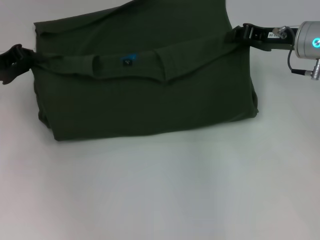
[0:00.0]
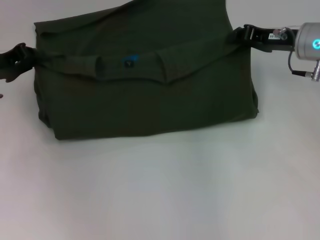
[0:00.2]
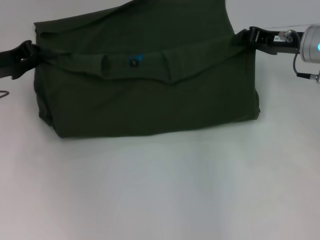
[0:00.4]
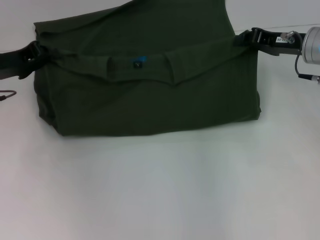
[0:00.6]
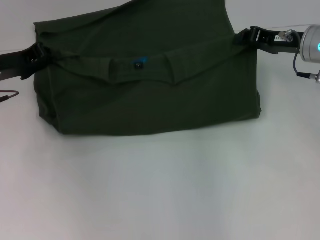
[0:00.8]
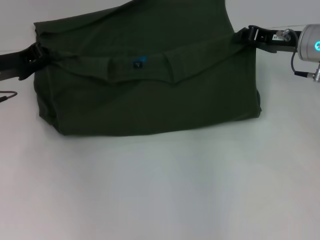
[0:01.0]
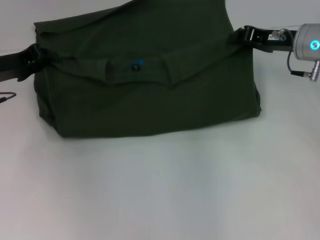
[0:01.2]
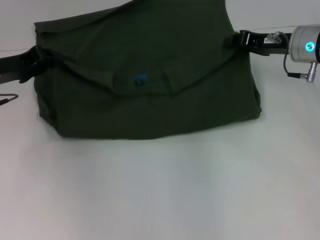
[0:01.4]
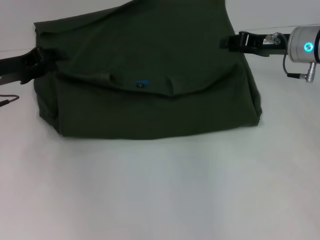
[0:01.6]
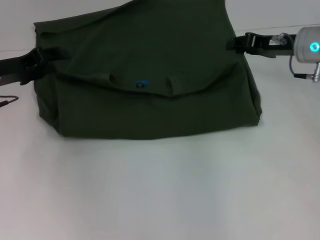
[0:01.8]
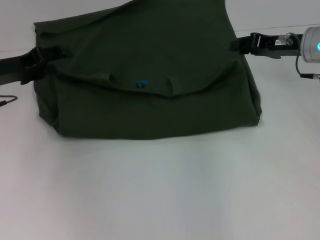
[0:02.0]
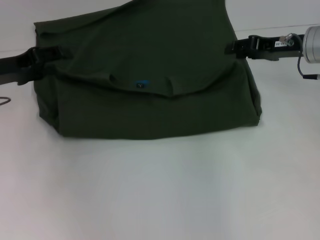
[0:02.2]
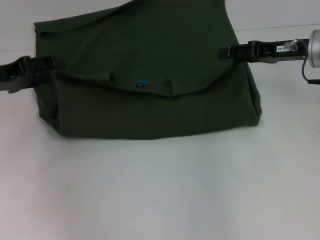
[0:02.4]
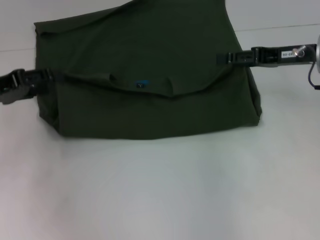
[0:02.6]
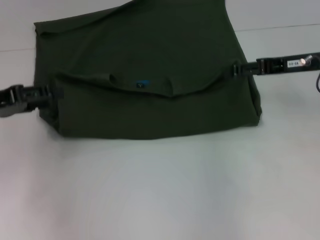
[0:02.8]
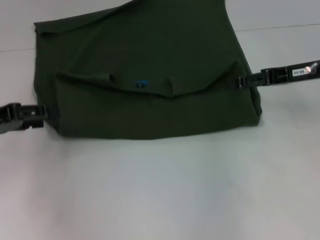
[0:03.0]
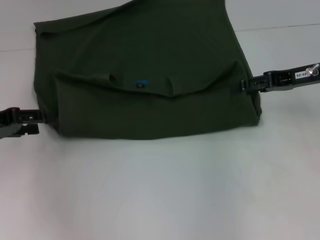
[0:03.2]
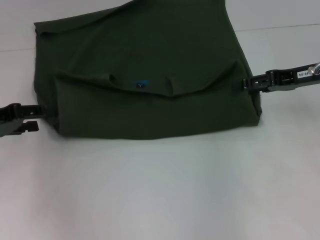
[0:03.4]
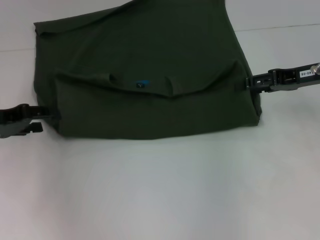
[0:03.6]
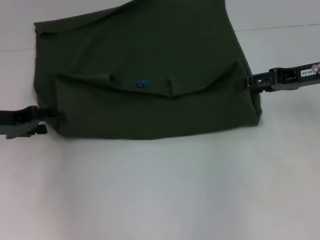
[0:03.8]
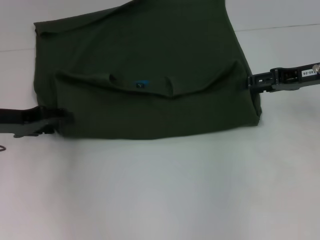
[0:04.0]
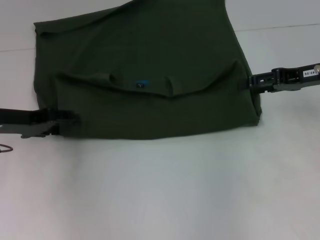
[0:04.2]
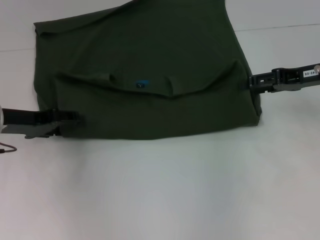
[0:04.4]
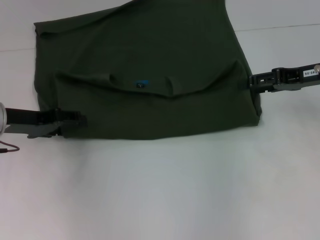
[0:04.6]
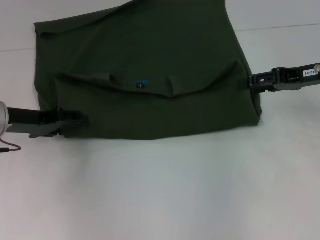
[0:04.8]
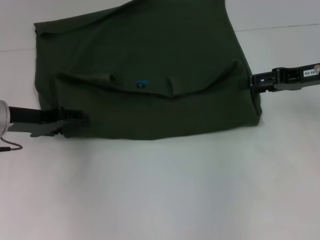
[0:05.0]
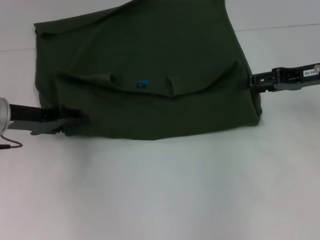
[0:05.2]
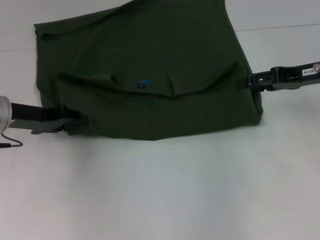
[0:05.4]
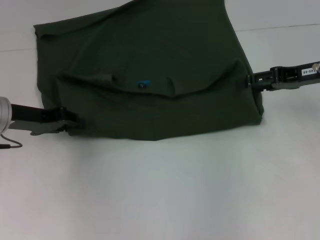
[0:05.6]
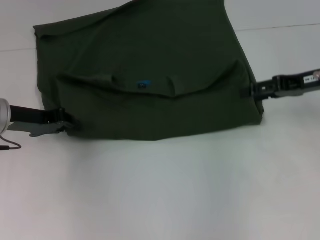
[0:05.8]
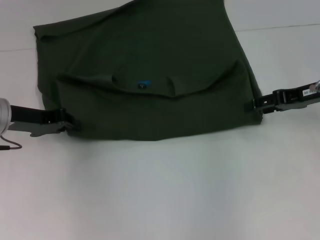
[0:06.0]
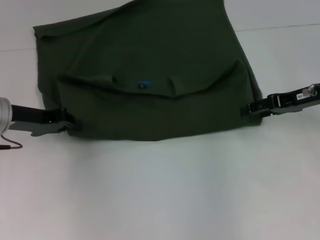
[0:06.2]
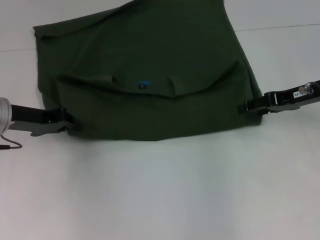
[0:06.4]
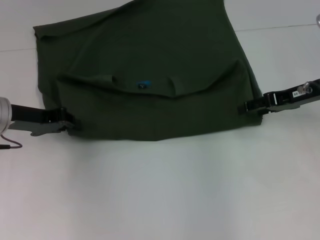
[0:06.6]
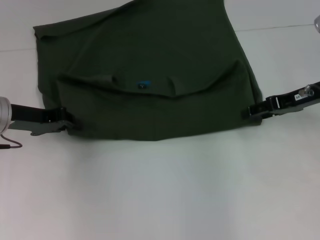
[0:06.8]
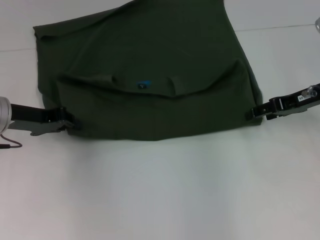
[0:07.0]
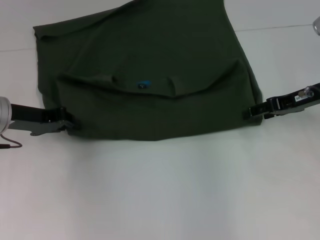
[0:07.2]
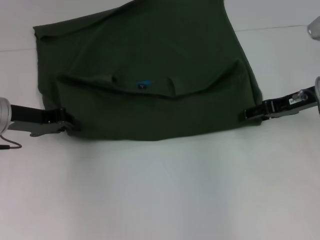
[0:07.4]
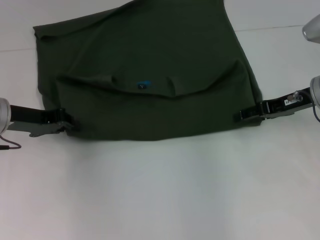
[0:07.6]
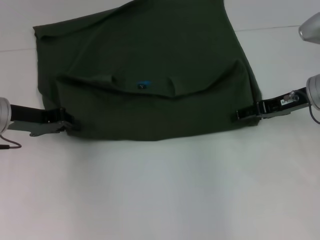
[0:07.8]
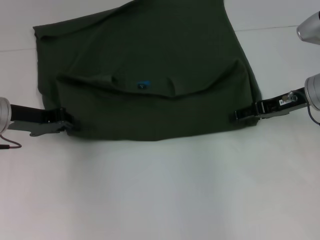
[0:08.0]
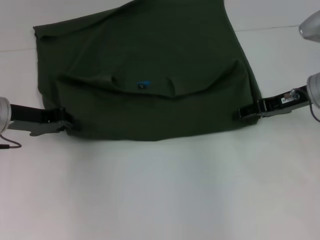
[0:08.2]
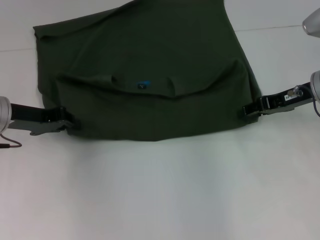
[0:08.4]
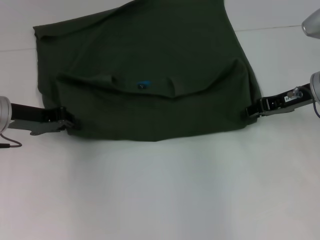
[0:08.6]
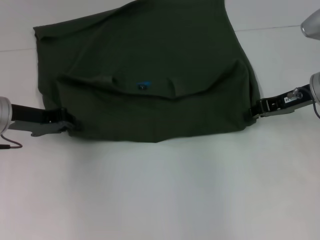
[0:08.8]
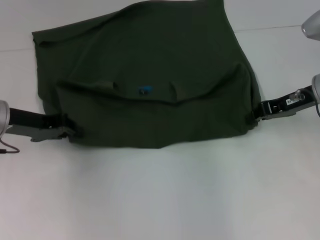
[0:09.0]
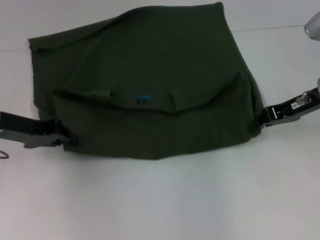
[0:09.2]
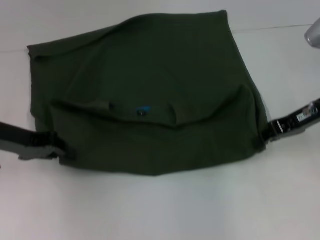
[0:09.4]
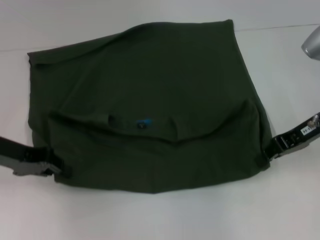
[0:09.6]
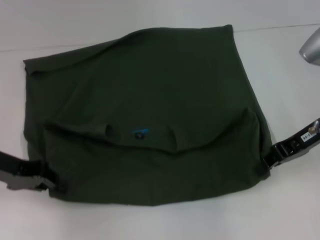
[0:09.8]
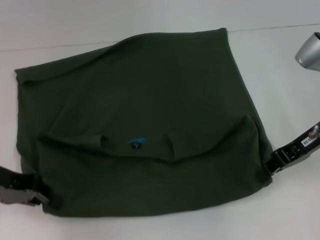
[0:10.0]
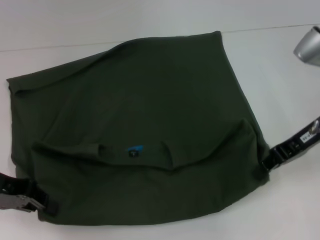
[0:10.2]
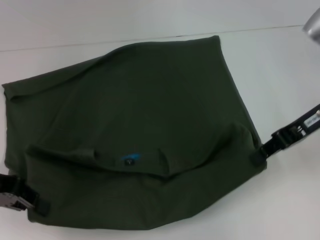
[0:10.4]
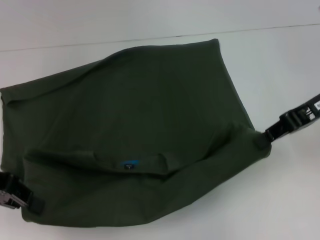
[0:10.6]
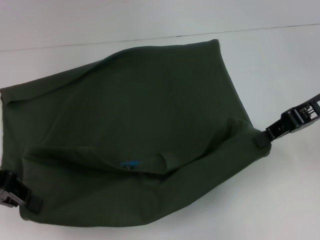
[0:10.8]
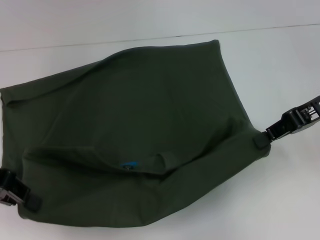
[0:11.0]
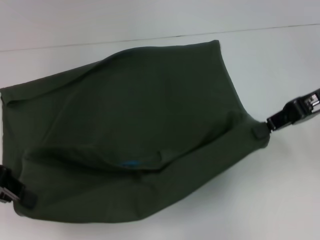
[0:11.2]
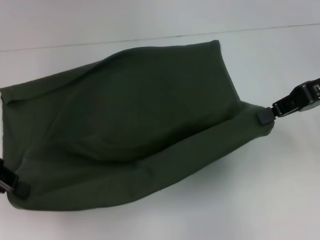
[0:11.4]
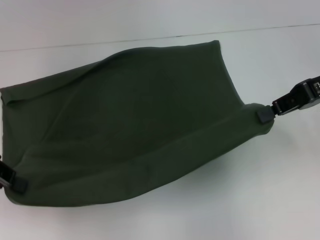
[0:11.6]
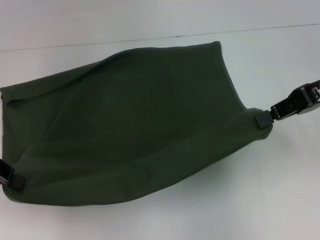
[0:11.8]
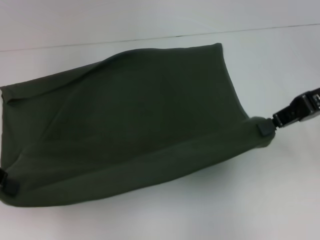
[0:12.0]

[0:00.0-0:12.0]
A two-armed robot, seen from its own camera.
Step, 0:01.6 to 0:10.0: Pull the clothes with your left hand.
Step, 0:01.6 to 0:10.0: Pull the clothes with your right hand.
0:00.0 to 0:01.6: The grippers make only small movements.
0:01.6 to 0:03.0: Both grippers move backward, about 5 cm. The left gripper opens. Meanwhile the right gripper opens its fingers.
0:03.0 to 0:04.4: The left gripper goes about 5 cm to the right.
0:04.4 to 0:06.0: The left gripper closes its fingers.
0:06.0 to 0:07.6: There are only small adjustments of the grippers.
0:07.6 to 0:09.0: The right gripper closes.
0:09.0 to 0:10.4: The right gripper is displaced upward by about 5 cm. Meanwhile the left gripper heads backward, covering roughly 5 cm.
0:10.4 to 0:12.0: The right gripper moves roughly 5 cm.

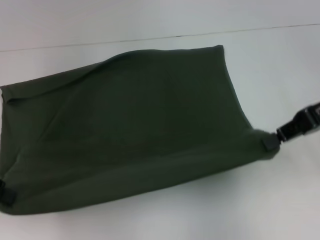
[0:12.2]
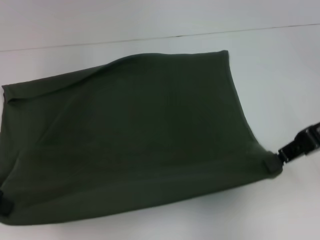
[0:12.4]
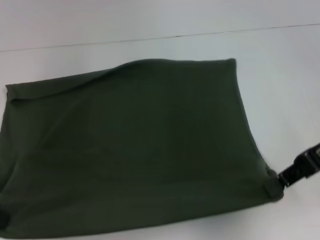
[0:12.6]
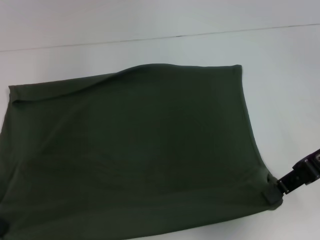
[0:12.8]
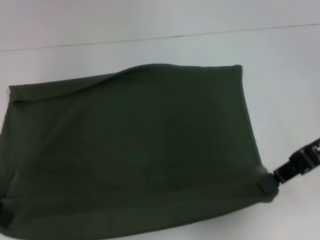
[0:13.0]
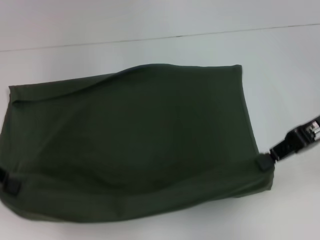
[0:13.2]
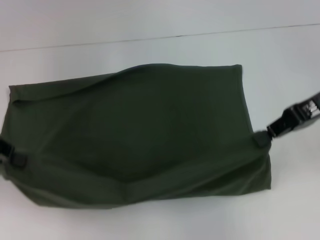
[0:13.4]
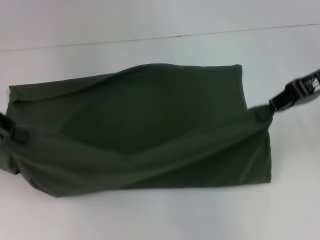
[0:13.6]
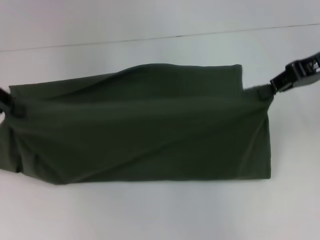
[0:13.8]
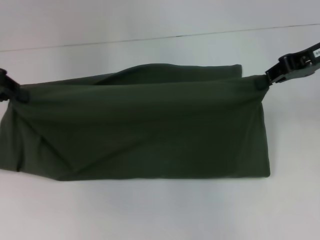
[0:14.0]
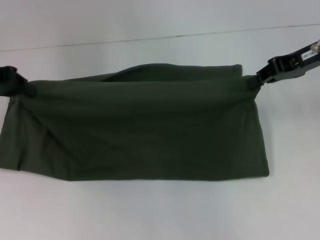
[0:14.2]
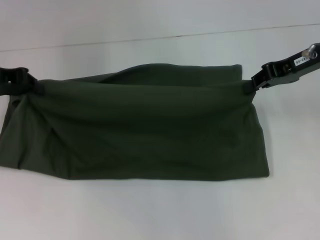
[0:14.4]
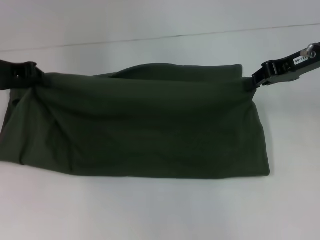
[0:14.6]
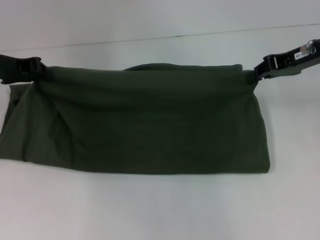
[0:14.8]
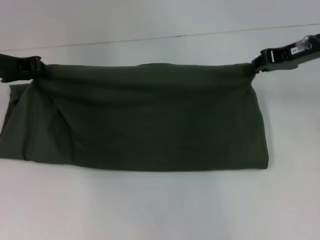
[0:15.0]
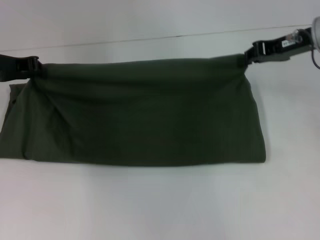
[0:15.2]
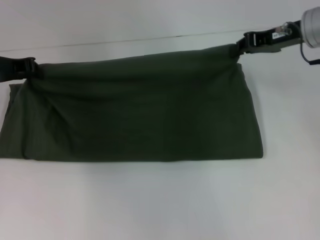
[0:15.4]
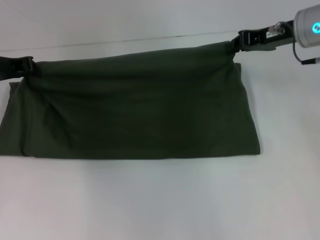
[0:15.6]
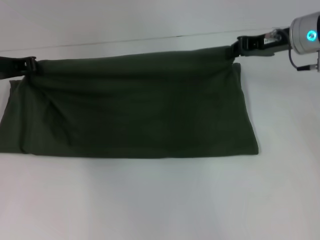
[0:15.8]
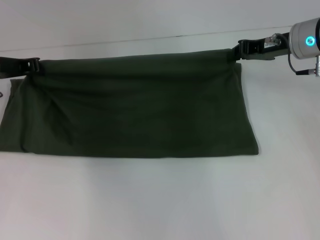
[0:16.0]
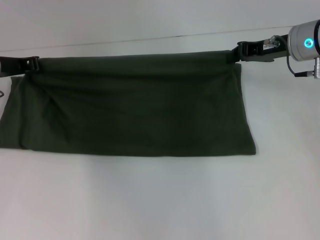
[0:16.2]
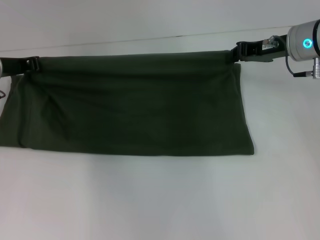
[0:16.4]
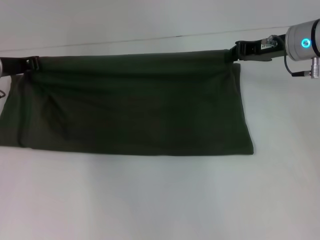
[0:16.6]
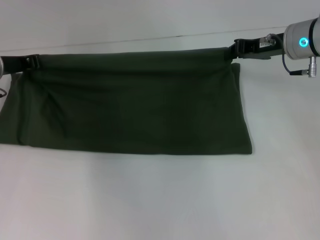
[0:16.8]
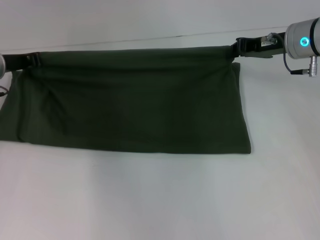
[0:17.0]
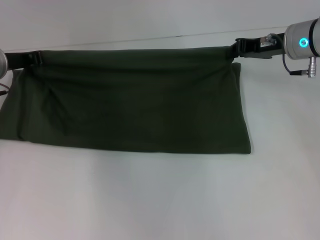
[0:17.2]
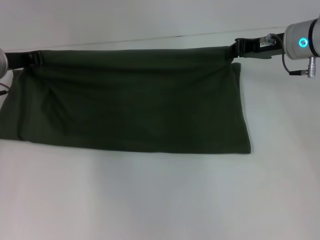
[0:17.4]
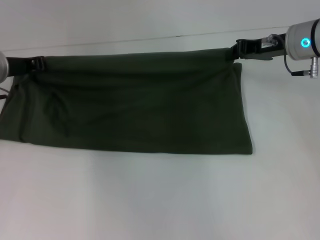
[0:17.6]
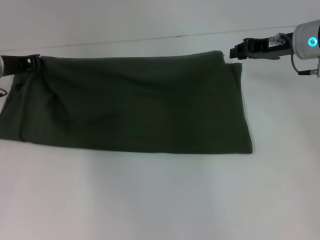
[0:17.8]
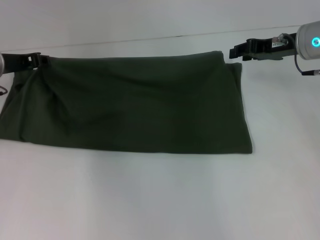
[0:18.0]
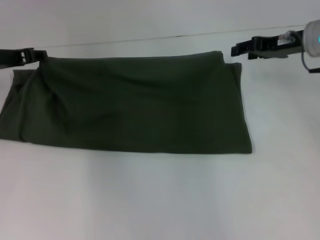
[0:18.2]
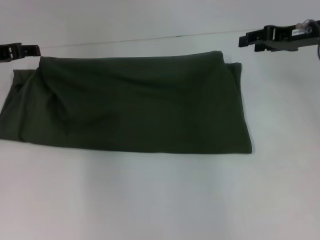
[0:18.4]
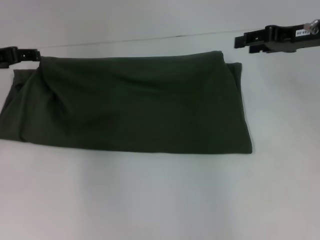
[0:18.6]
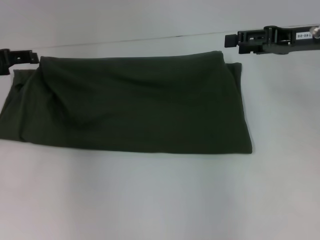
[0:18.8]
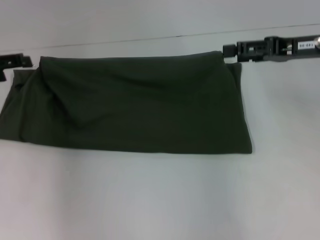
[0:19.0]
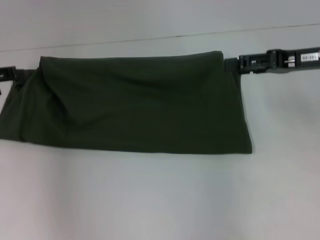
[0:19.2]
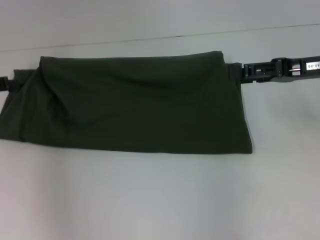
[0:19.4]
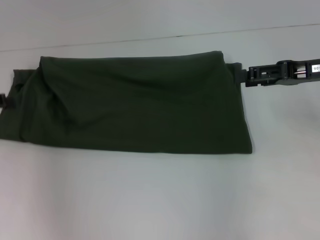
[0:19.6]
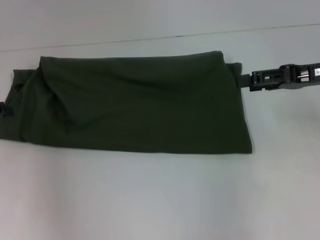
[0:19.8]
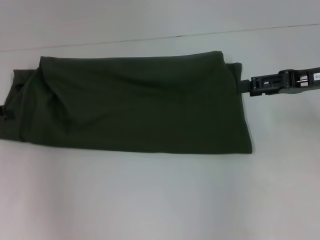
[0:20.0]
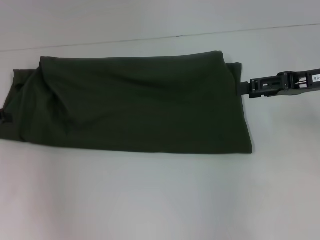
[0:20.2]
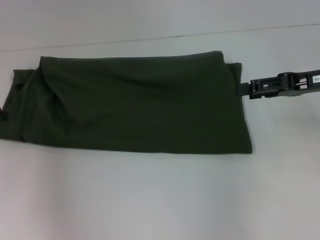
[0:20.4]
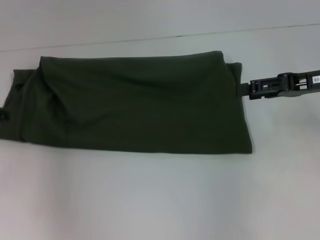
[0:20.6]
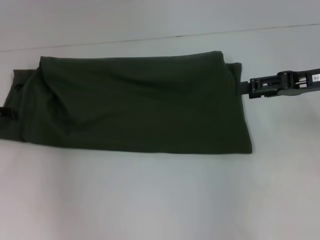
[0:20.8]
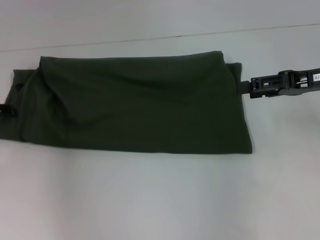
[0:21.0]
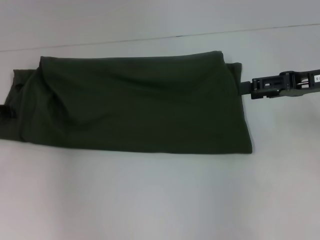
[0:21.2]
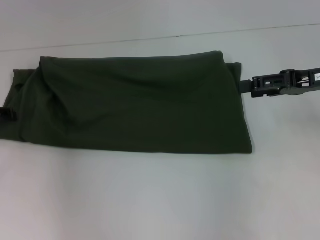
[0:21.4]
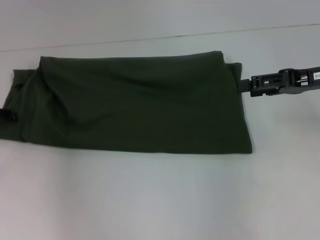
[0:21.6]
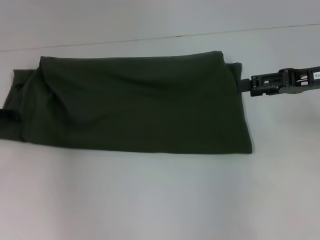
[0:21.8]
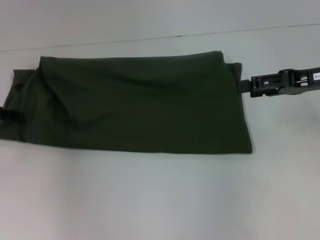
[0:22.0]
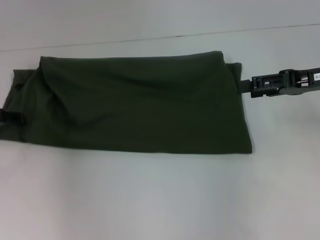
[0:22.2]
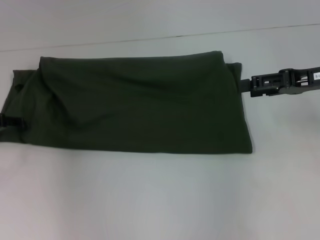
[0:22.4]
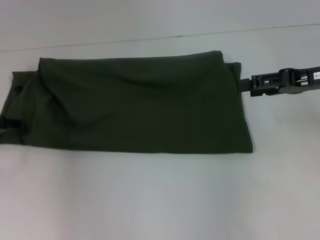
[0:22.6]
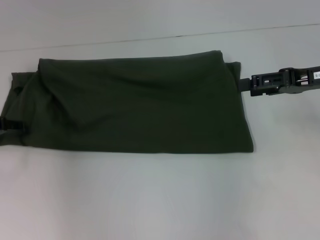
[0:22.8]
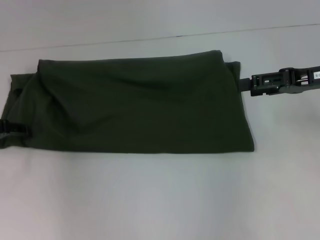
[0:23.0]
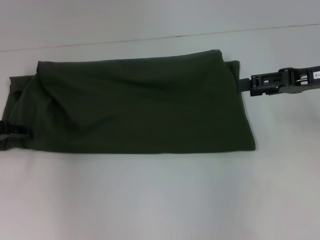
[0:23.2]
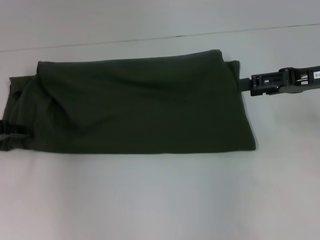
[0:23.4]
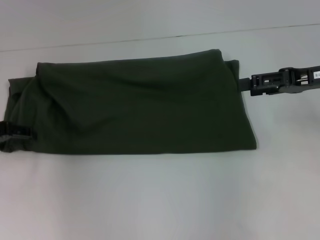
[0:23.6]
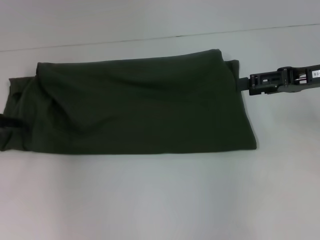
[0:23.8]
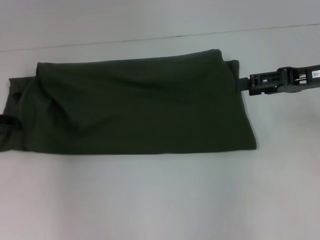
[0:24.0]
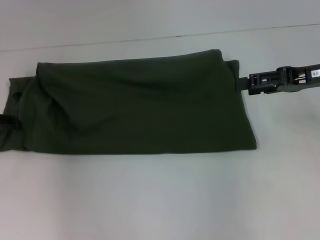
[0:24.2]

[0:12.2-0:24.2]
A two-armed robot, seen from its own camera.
Step, 0:12.2 to 0:18.2: Fold the clothes with your right hand.
0:12.2 to 0:13.8: The grippers both shift forward by about 5 cm.
0:13.8 to 0:15.2: The right gripper shifts by roughly 5 cm. Meanwhile the left gripper goes some 10 cm downward and forward.
0:15.2 to 0:16.6: The grippers move only a little.
0:16.6 to 0:18.2: The right gripper opens up; the left gripper opens its fingers.
0:18.2 to 0:19.8: The left gripper travels to the left and backward by some 15 cm, and opens its fingers. Meanwhile the right gripper is displaced backward by some 10 cm, and opens its fingers.
0:21.2 to 0:24.2: The grippers make only small movements.
